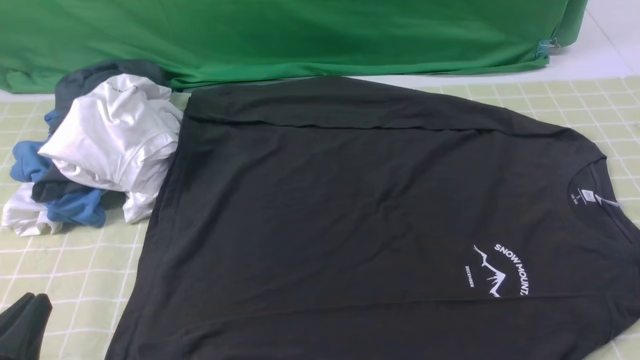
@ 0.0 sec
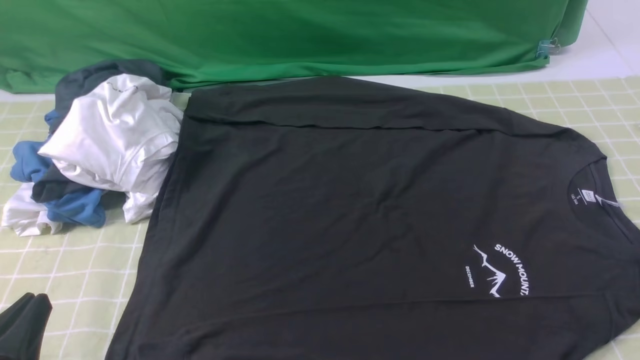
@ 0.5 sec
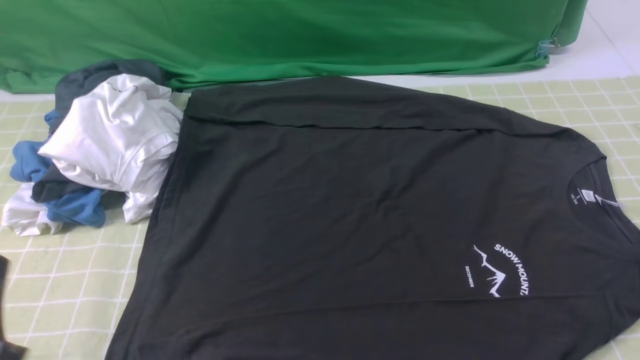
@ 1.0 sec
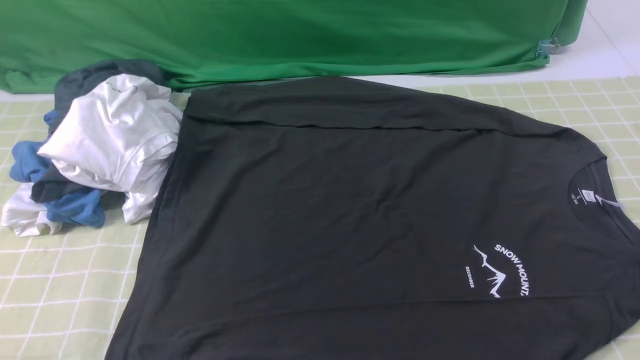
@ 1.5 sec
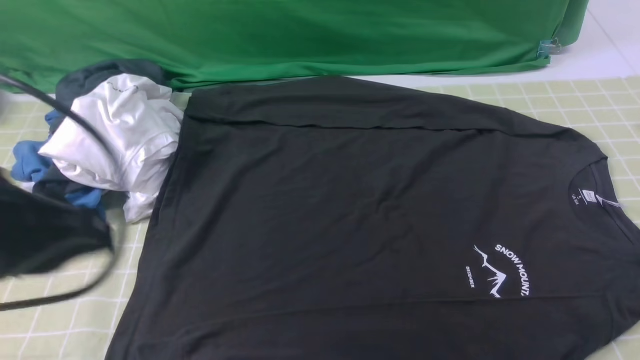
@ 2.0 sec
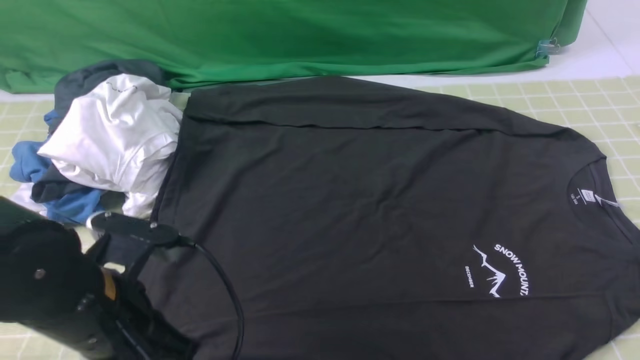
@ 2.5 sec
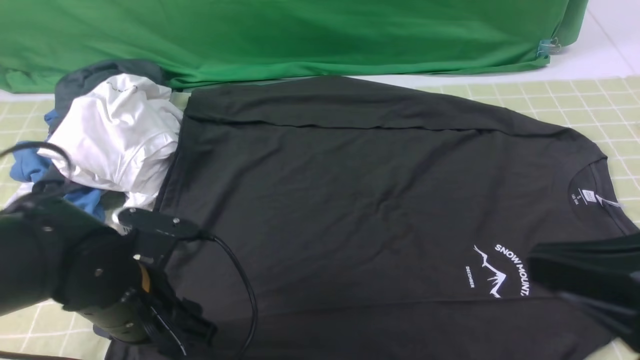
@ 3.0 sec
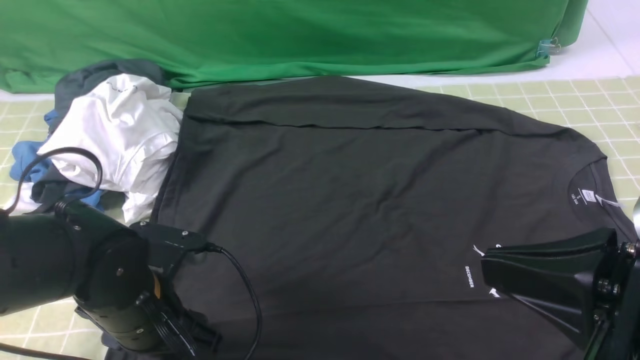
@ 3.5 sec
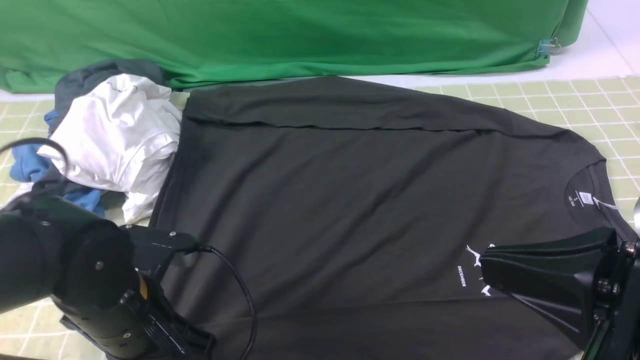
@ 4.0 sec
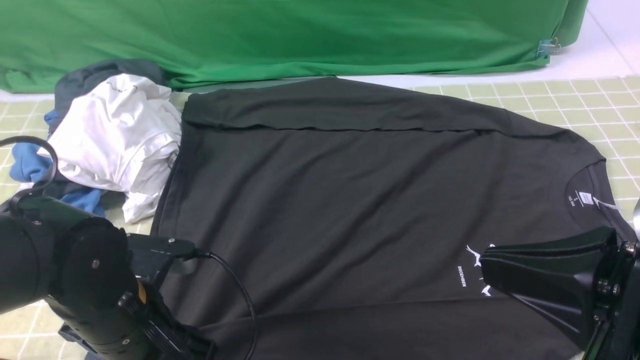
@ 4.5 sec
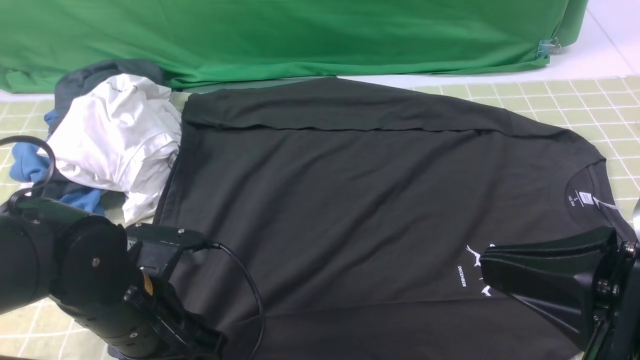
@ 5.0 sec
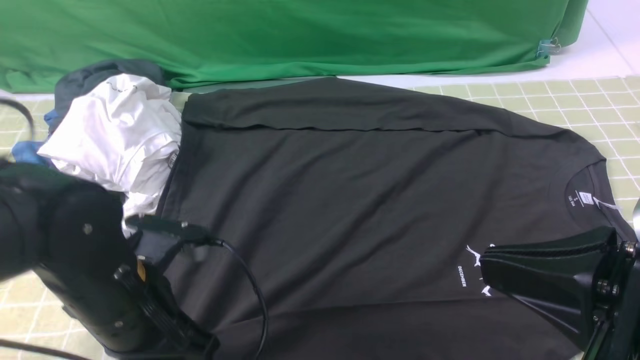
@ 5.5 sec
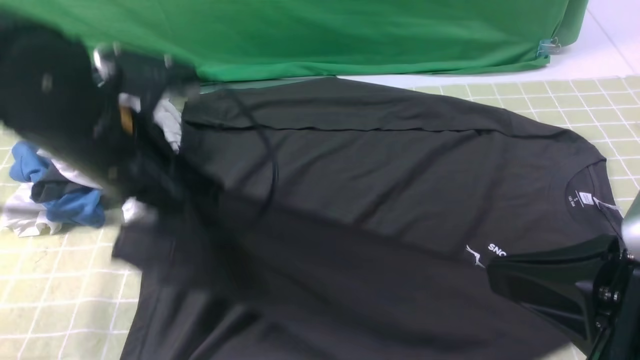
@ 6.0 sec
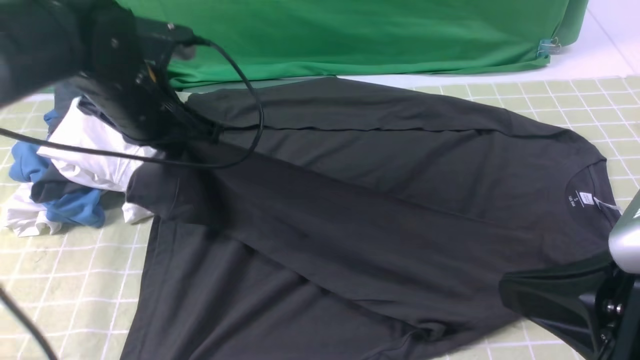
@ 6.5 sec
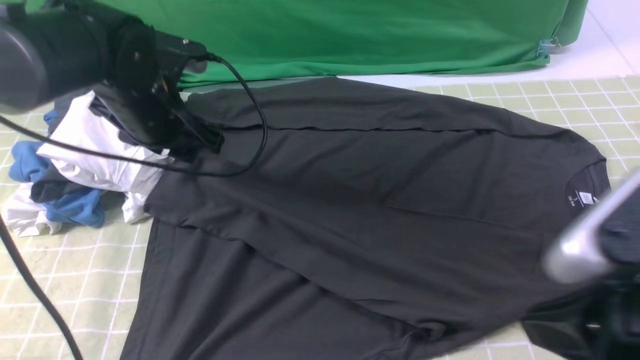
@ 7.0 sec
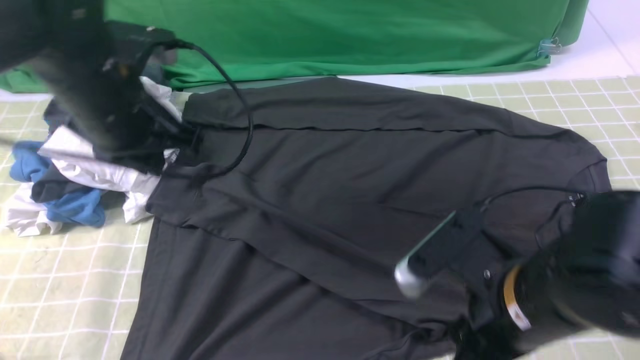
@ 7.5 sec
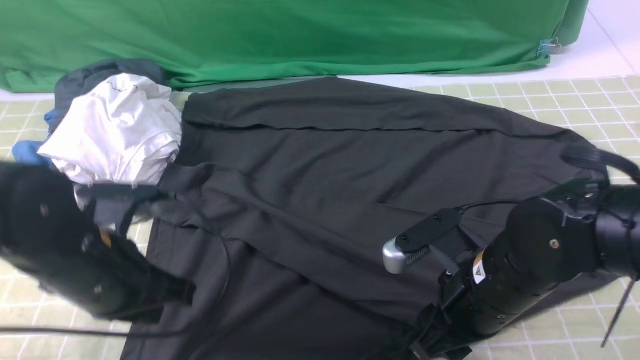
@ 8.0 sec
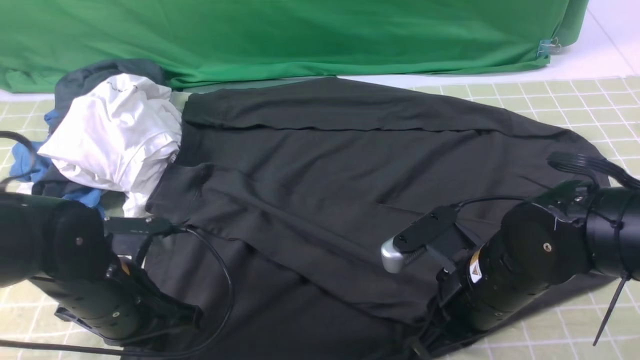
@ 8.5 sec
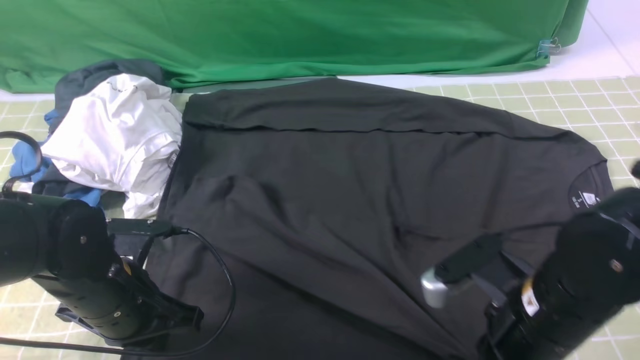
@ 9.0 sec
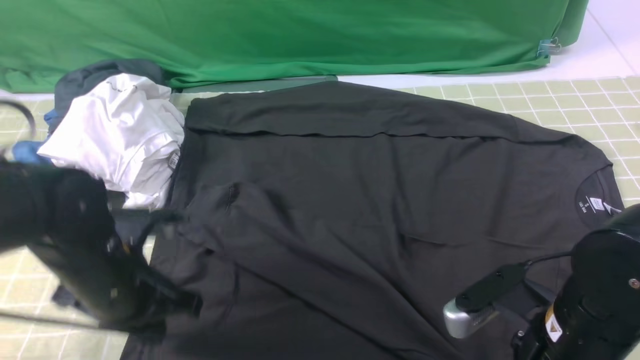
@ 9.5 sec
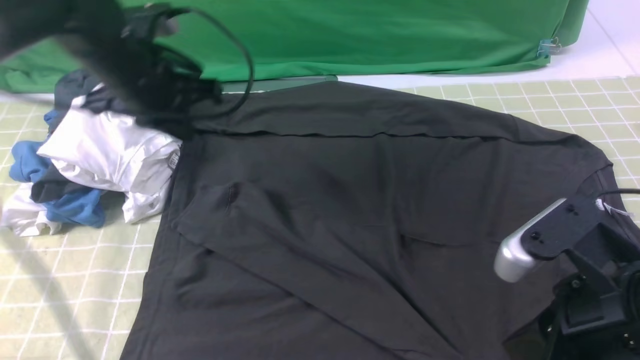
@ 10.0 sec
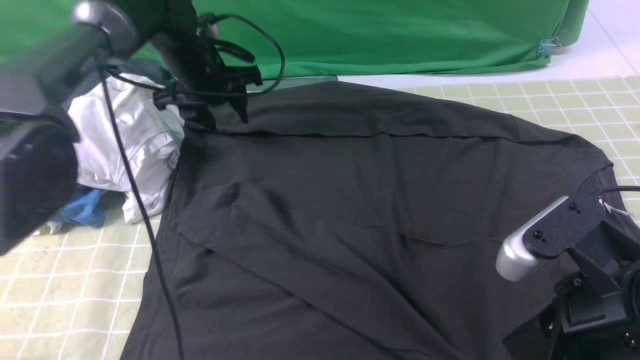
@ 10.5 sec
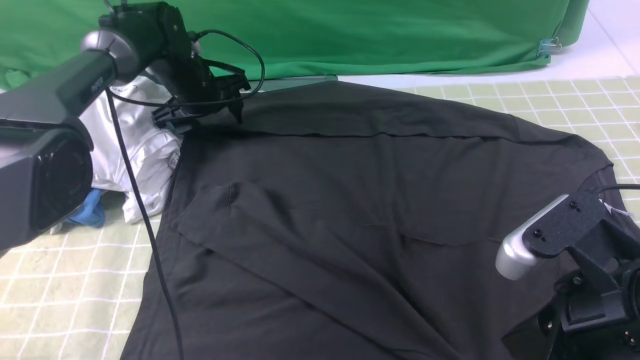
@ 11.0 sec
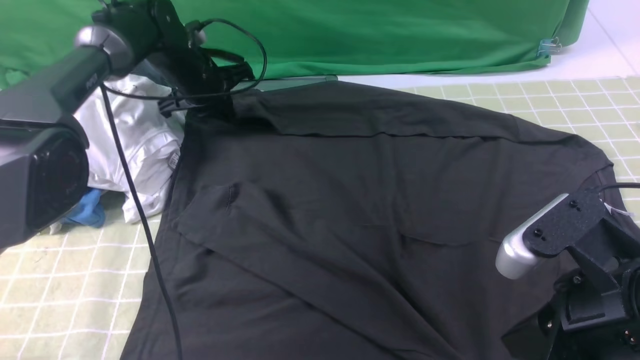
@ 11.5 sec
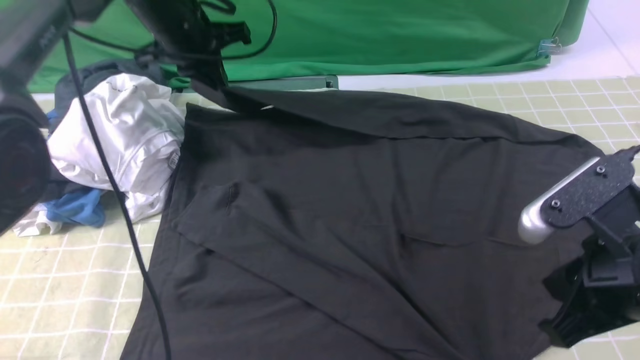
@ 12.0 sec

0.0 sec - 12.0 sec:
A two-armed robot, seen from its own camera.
Step, 0.0 sec - 4.5 sec: use the left arm to clamp the cuff closest to it.
Step, 5.0 sec - 7.0 sec: use the left arm to drag and place the cuff at the centered position on the left edge of the fabric.
Step, 7.5 sec - 11.0 sec: use the left arm to clamp the cuff farthest from it.
0.0 sec - 2.0 sec: The left gripper travels upward and forward by roughly 15 cm.
2.0 sec - 4.0 sec: The left gripper travels downward by roughly 15 cm, and opens and closes again; the right gripper goes approximately 15 cm to the left and upward.
4.0 sec - 6.0 sec: The left gripper is displaced upward and forward by roughly 15 cm, and opens, then closes once more.
6.0 sec - 8.0 sec: The left gripper heads downward, covering roughly 10 cm, travels forward and back again, approximately 10 cm each way, and opens and closes again; the right gripper shifts some 20 cm downward, forward and to the left, and opens up.
8.0 sec - 10.0 sec: The right gripper goes about 15 cm upward, backward and to the right, and closes; the left gripper shifts roughly 20 cm forward and upward.
10.0 sec - 12.0 sec: The left gripper shifts roughly 10 cm forward, and opens, then closes once more.

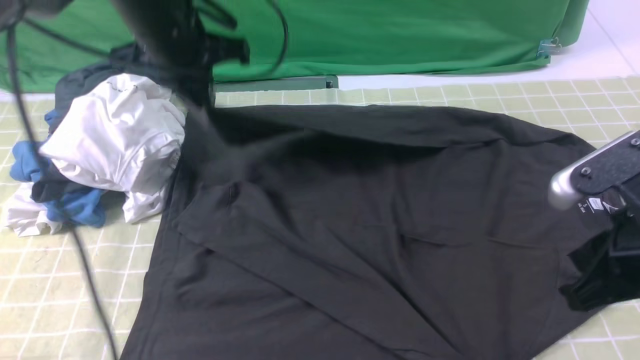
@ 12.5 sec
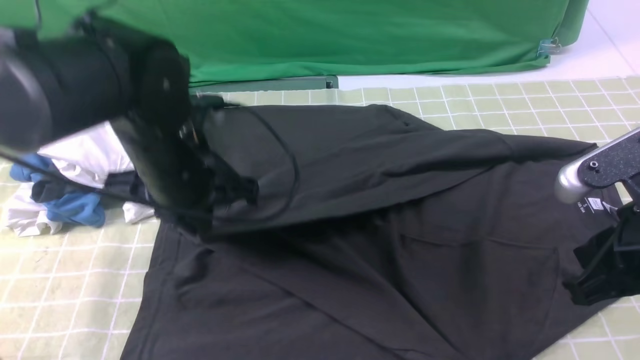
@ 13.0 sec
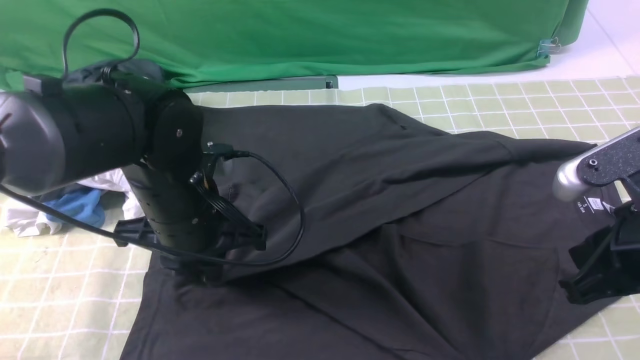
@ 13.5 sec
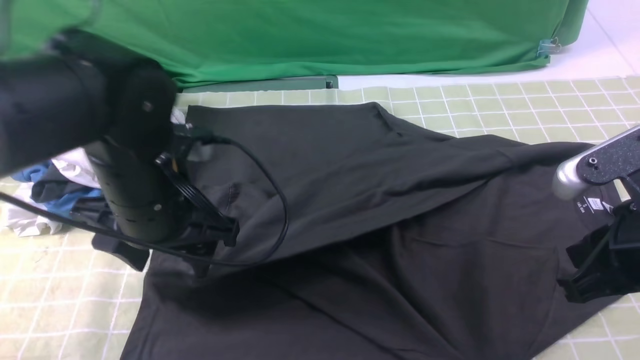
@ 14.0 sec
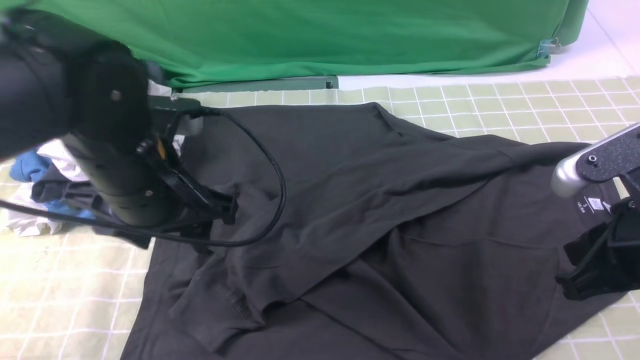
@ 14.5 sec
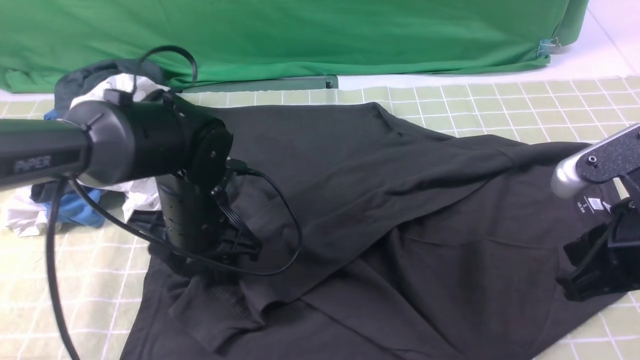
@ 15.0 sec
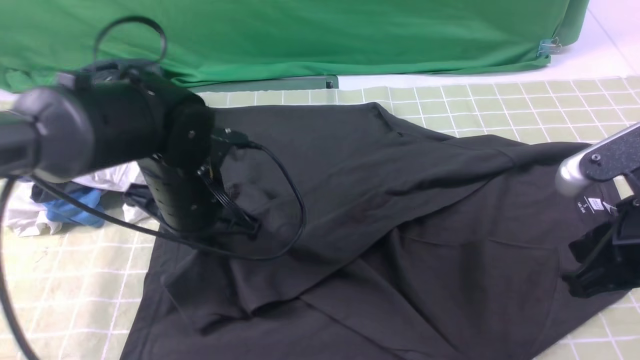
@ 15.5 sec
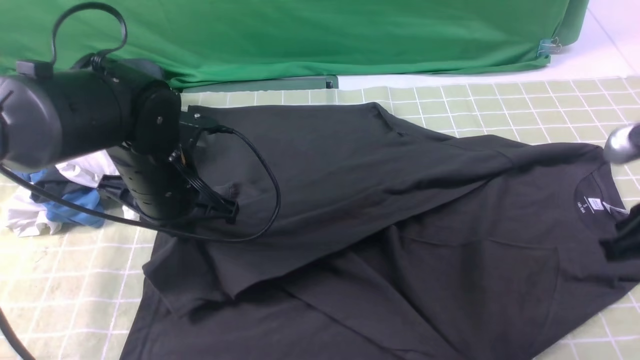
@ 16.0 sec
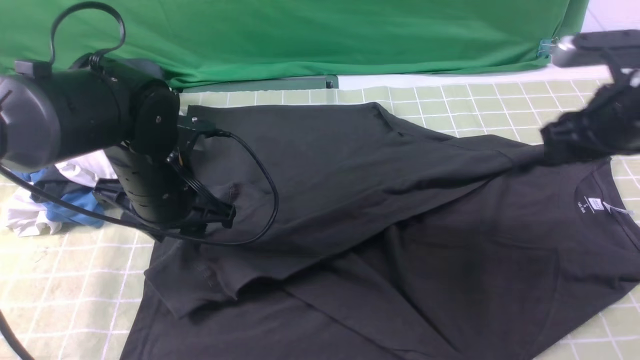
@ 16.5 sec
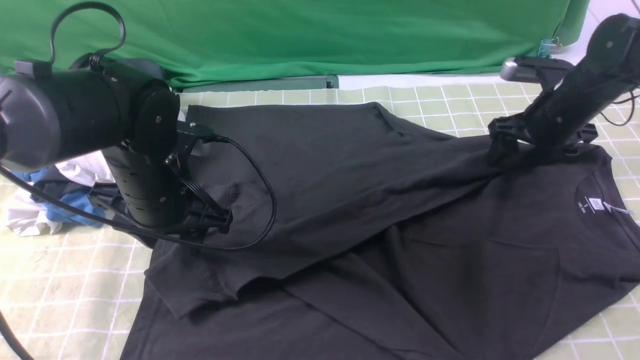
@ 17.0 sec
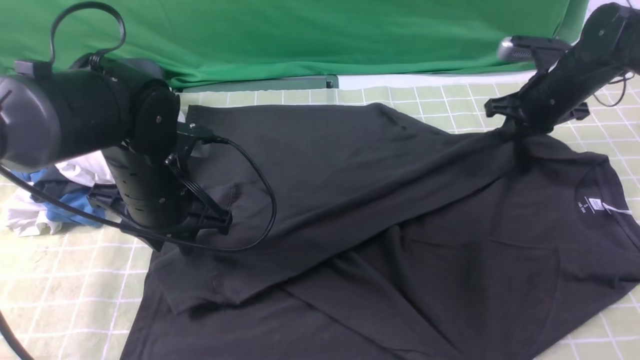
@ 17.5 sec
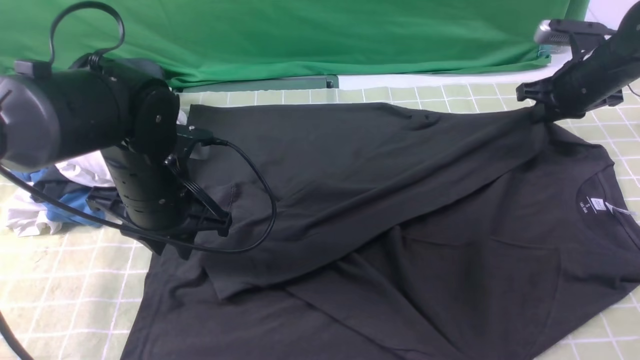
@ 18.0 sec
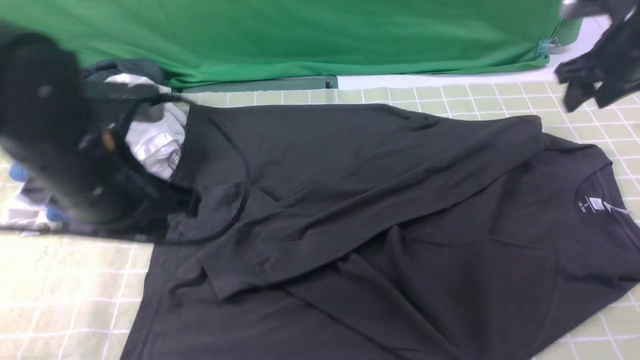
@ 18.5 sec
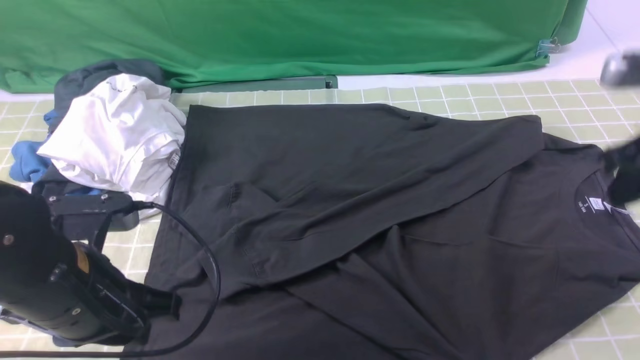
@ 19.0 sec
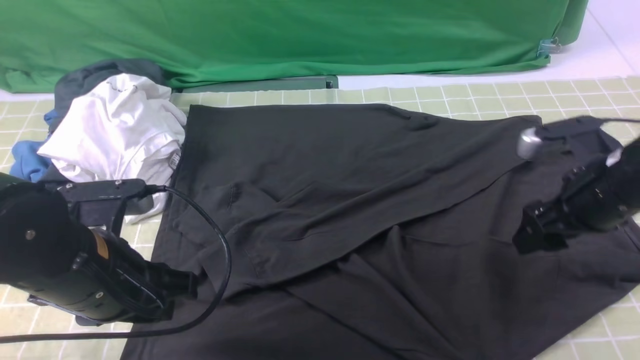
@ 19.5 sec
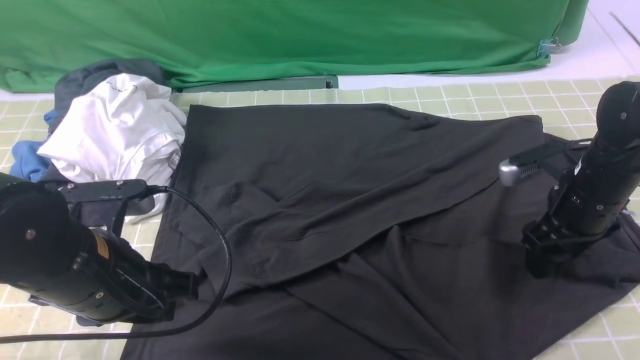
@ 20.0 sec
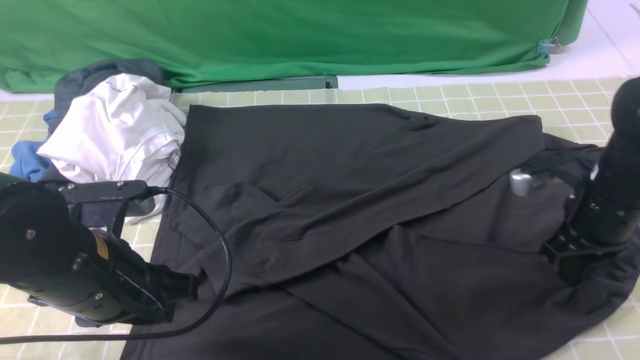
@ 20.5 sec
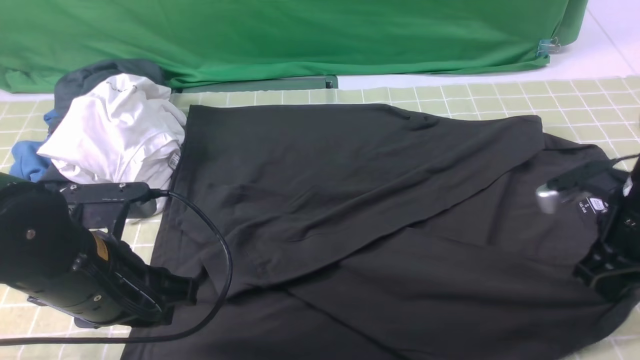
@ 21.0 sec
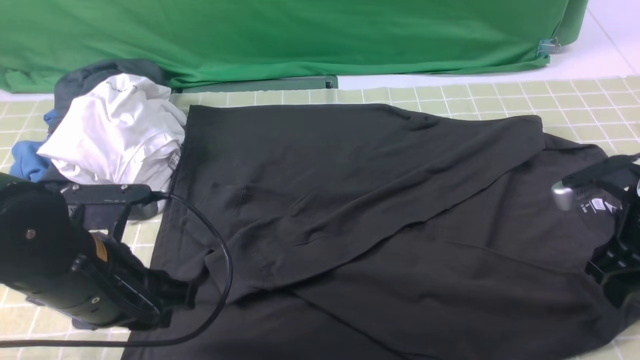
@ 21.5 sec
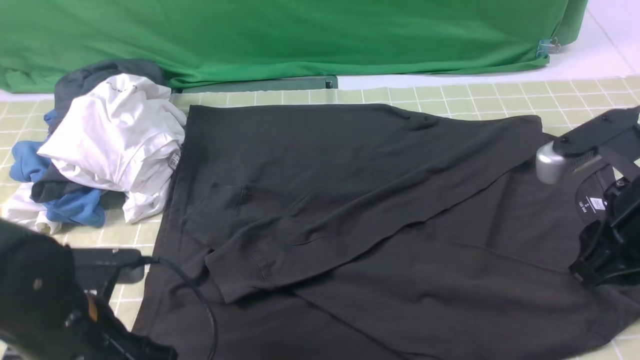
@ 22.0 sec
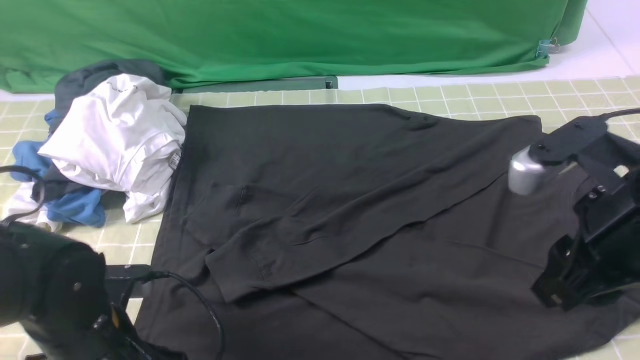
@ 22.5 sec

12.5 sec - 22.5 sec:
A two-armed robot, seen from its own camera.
Step, 12.5 sec - 16.5 sec: use the left arm to drag and drop the cuff onto the cuff closest to the left arm.
12.5 sec - 14.5 sec: The left gripper shifts roughly 15 cm backward, and opens its fingers.
14.5 sec - 16.5 sec: The right gripper shifts some 20 cm forward, and opens its fingers, while the left gripper moves roughly 5 cm, and closes, then reopens.
16.5 sec - 18.5 sec: The right gripper travels forward by roughly 10 cm, and closes, then reopens. Meanwhile the left gripper goes roughly 10 cm backward and upward.
18.5 sec - 20.5 sec: The left gripper shifts about 5 cm downward. Meanwhile the right gripper shifts roughly 15 cm backward and downward, and closes its fingers.
20.5 sec - 22.5 sec: The left gripper goes some 5 cm downward; the right gripper goes approximately 20 cm upward, backward and to the left, and opens its fingers.
